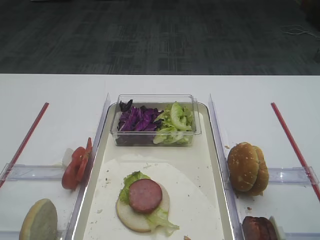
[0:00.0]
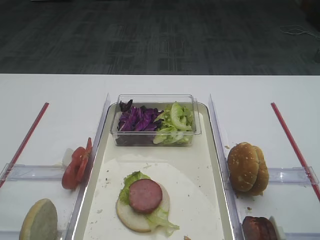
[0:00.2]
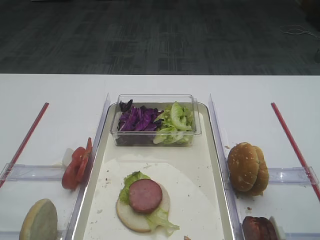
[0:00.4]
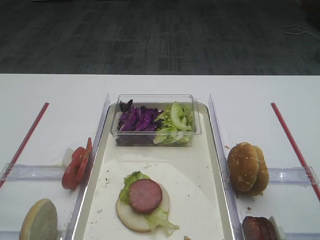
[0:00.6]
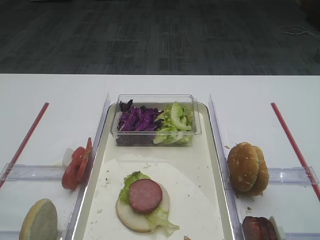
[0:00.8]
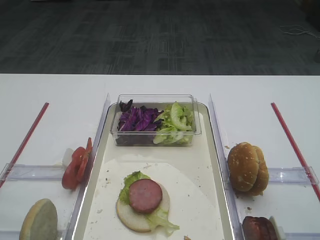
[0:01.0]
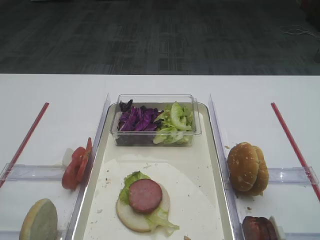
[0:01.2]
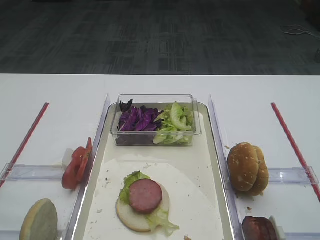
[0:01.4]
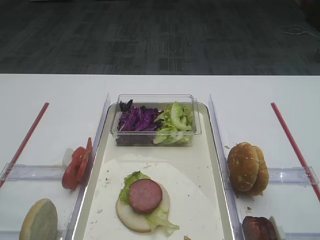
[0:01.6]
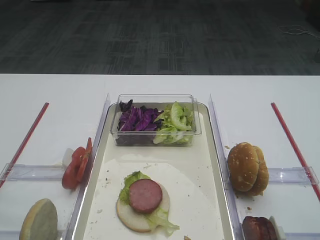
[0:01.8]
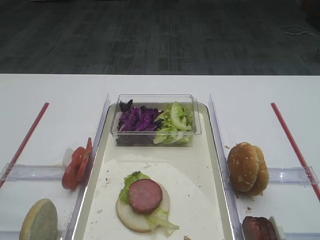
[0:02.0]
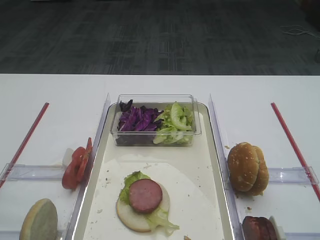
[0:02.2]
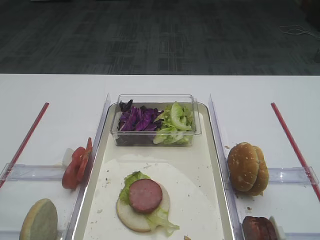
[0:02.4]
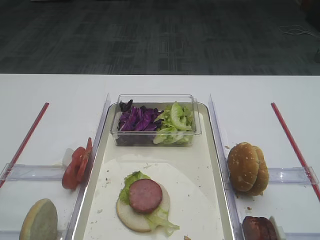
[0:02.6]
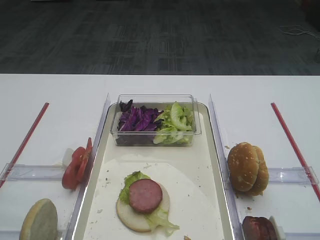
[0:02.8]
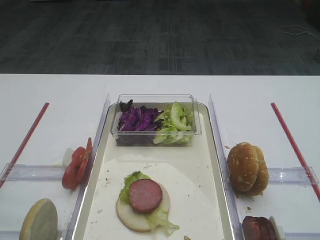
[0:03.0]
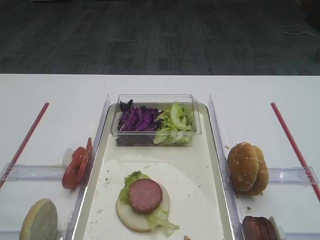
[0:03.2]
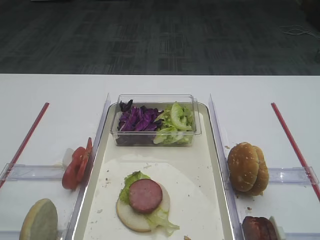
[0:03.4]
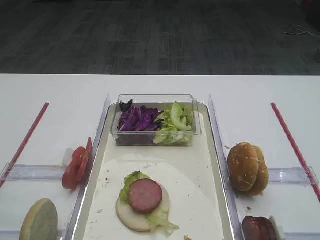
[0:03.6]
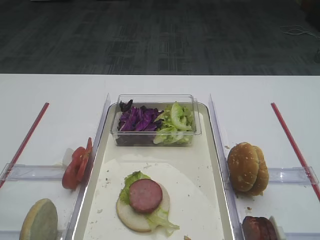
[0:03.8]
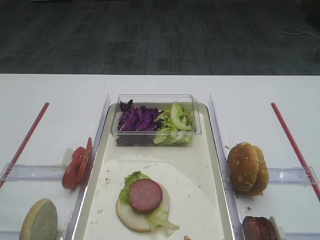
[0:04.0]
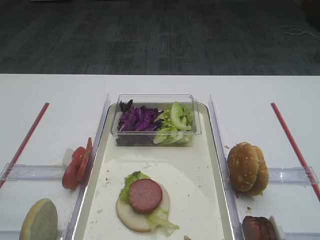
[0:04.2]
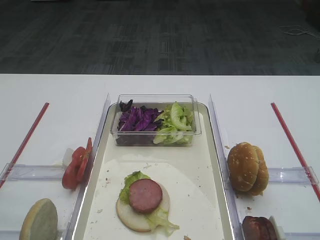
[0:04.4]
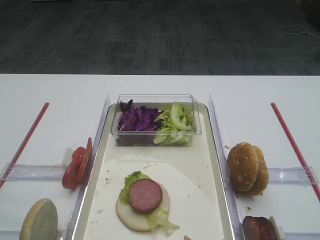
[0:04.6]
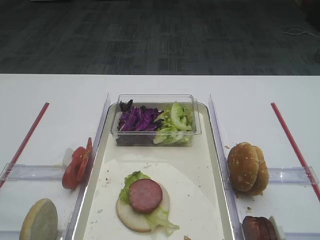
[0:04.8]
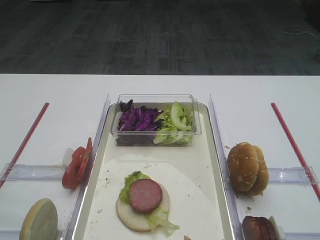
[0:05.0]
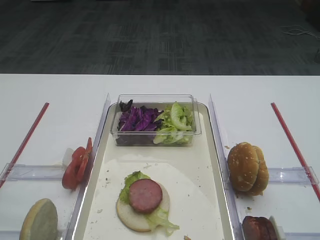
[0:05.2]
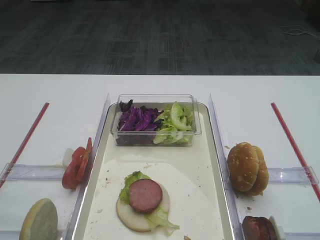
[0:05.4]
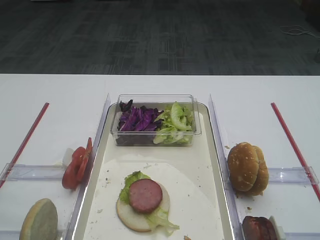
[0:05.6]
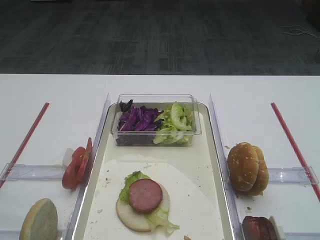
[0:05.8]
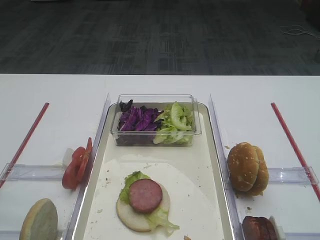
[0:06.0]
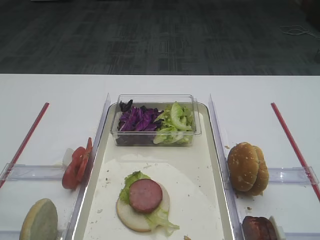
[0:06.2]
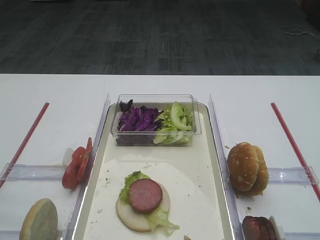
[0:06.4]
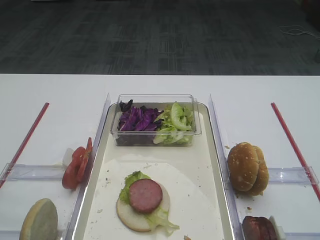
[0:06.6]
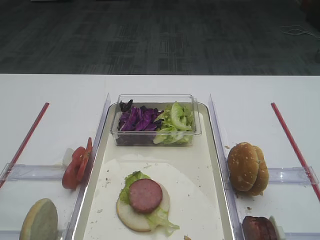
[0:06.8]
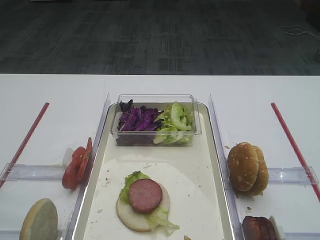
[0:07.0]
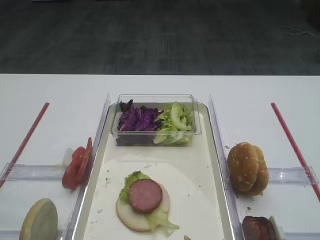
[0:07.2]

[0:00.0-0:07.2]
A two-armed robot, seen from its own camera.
0:04.4 to 0:07.2: The two grippers keep their place.
